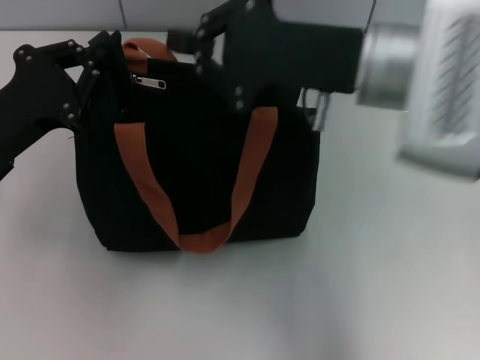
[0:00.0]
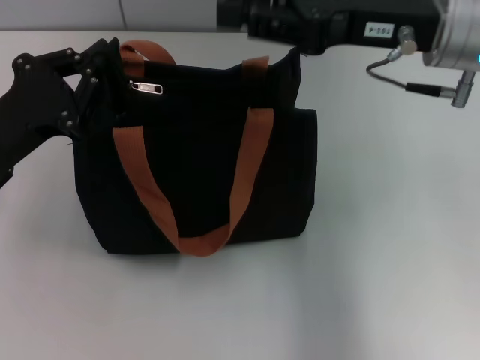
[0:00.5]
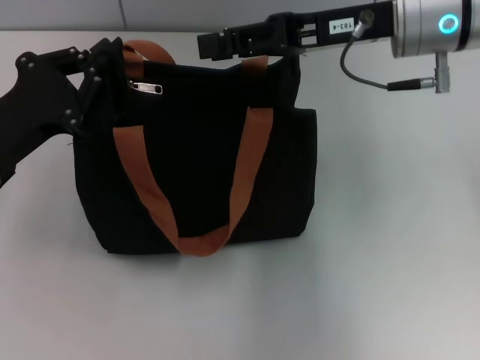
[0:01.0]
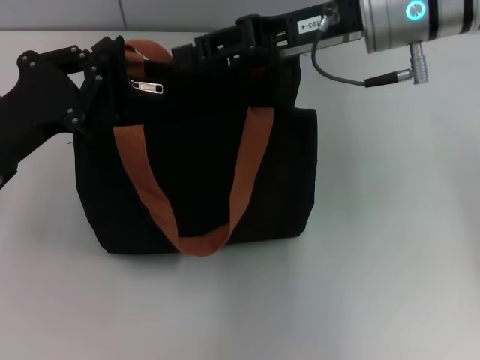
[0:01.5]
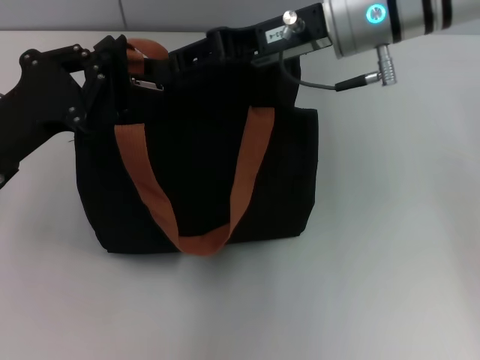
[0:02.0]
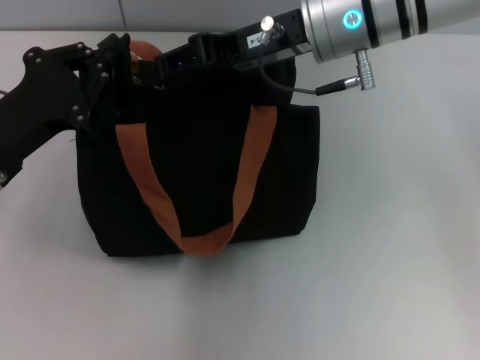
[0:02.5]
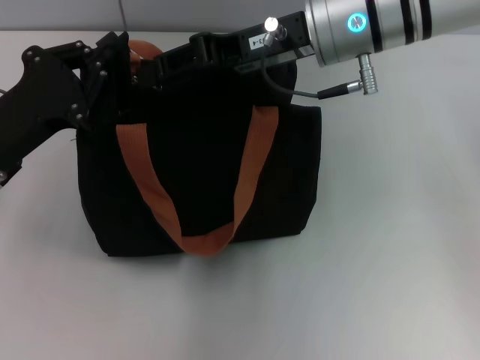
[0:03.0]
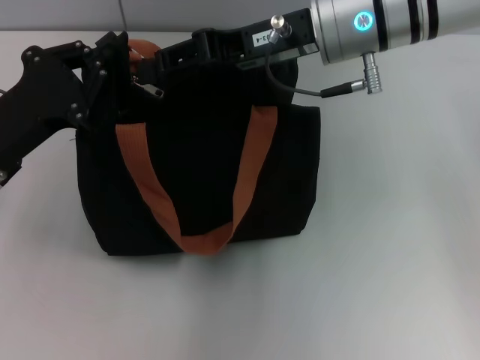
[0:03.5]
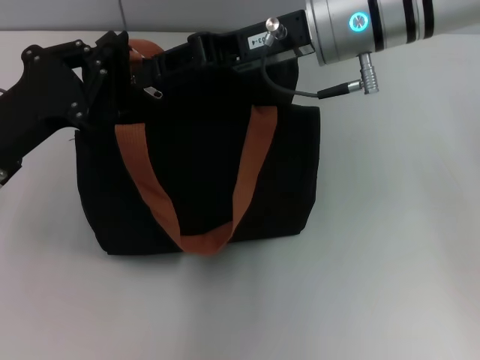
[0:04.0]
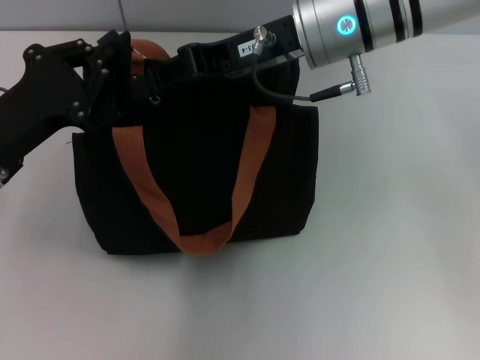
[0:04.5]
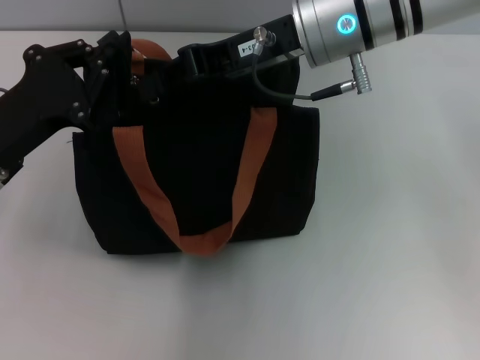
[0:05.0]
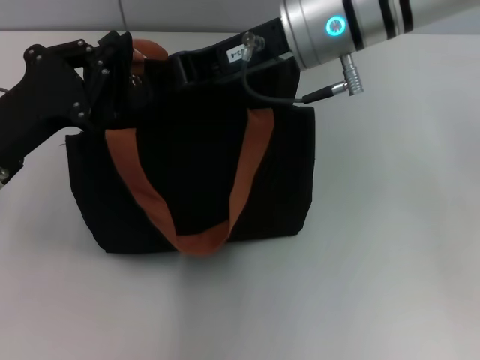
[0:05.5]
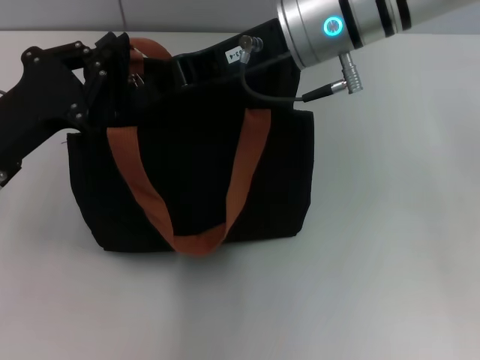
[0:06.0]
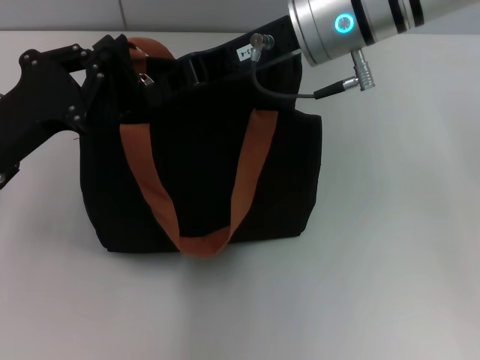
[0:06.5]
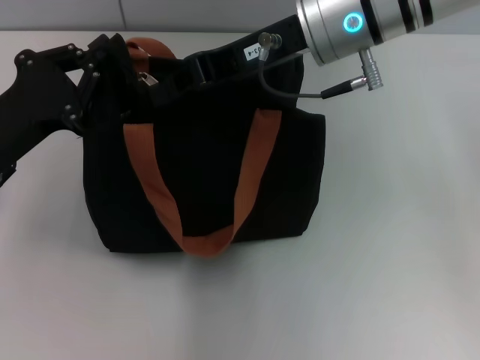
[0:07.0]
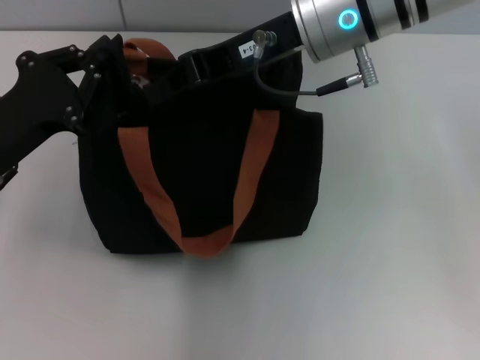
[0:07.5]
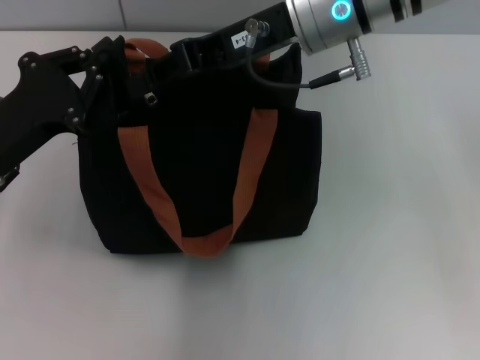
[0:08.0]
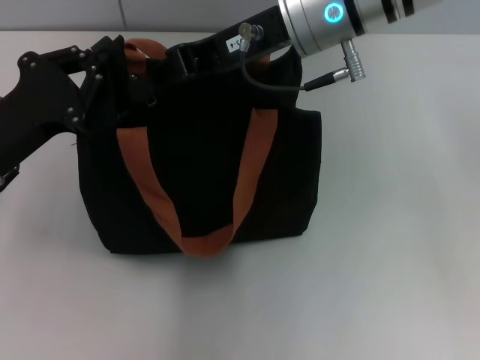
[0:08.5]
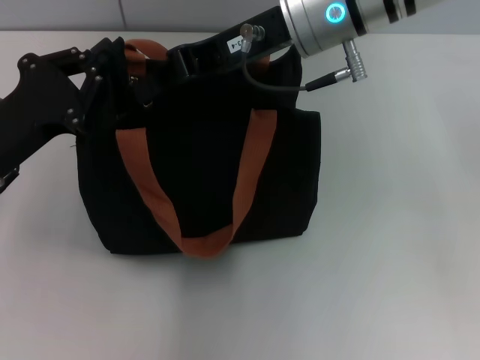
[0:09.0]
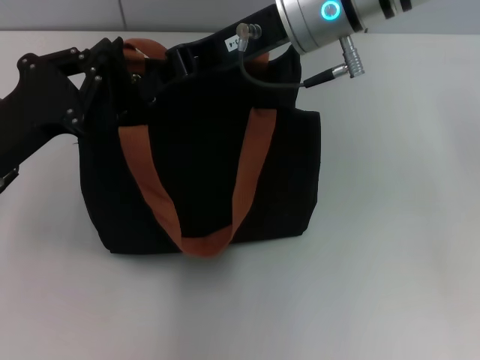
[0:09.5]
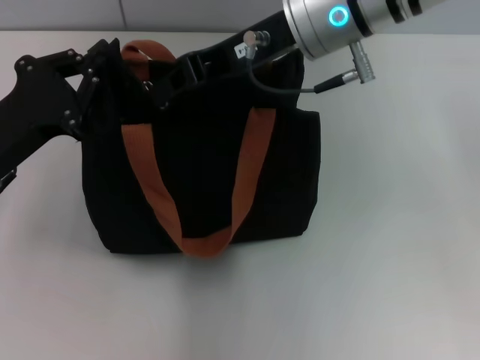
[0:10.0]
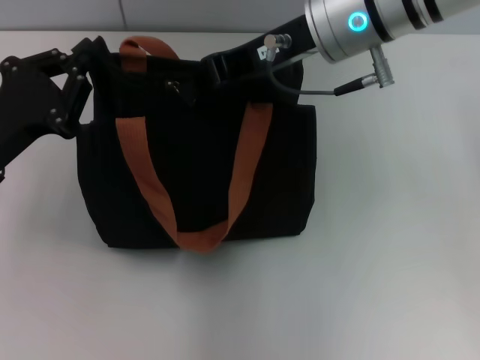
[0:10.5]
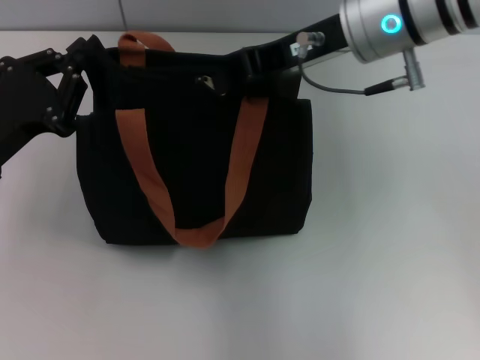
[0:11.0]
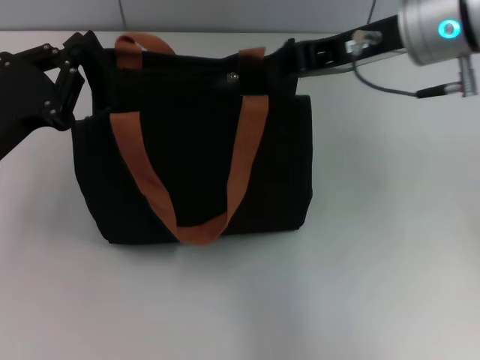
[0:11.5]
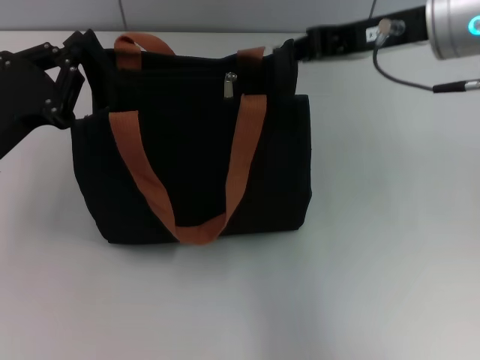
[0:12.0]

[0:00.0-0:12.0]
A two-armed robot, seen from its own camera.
Step, 0:00.0 to 0:11.0: Pull up the zipper with your right hand.
0:00.0 to 0:02.0: The right gripper travels forward by about 10 cm, and opens.
0:02.0 to 0:04.0: The grippers move only a little.
0:04.0 to 0:06.0: The right gripper closes up.
0:06.0 to 0:08.0: Both grippers stay put.
0:08.0 to 0:10.0: There are only small adjustments of the grippers.
0:10.0 to 0:12.0: The right gripper moves to the right, approximately 10 cm.

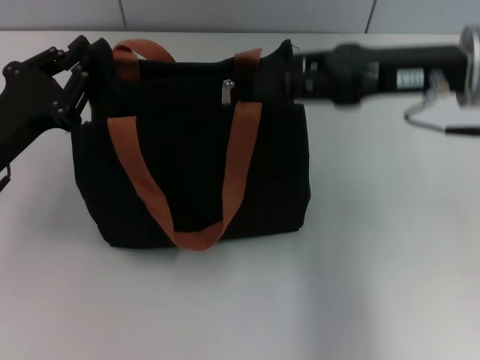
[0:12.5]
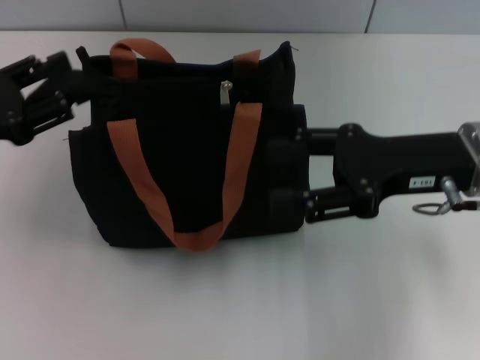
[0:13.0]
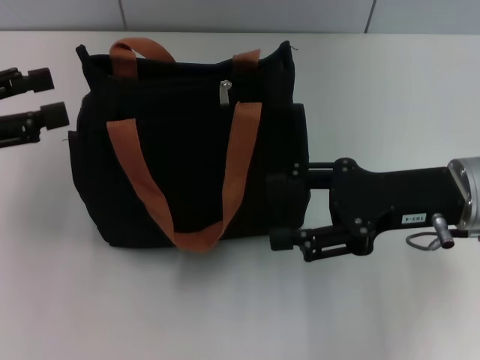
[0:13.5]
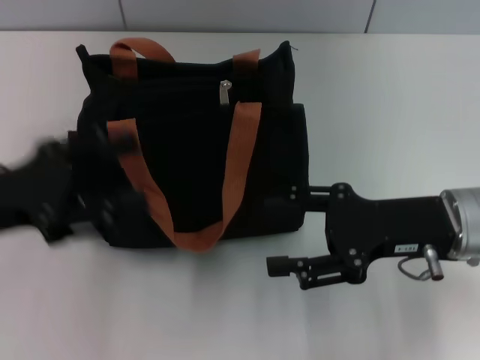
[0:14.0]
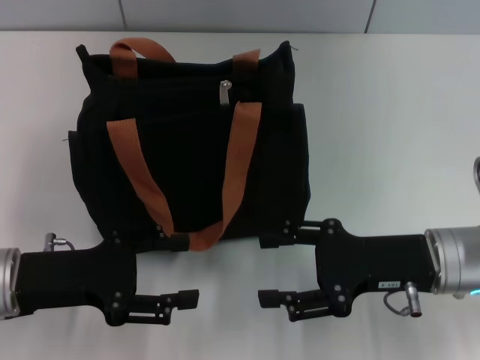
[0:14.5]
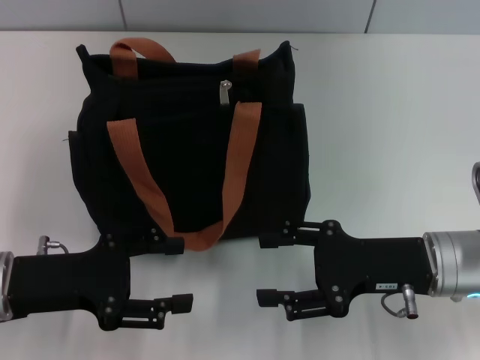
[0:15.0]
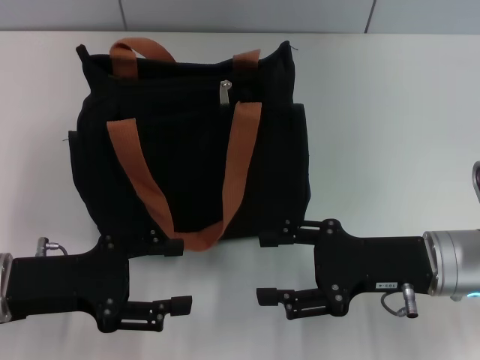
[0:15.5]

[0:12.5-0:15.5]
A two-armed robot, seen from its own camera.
0:12.5 to 0:14.0: The left gripper opens up. The right gripper is displaced downward and backward by some 10 cm, and opens its fingers.
0:14.0 to 0:15.5: The left gripper is displaced downward by some 5 cm.

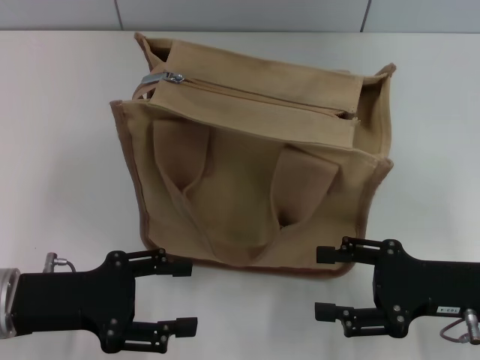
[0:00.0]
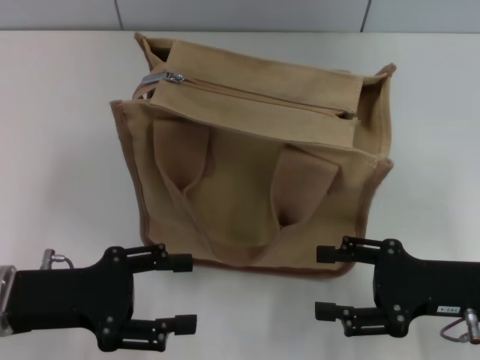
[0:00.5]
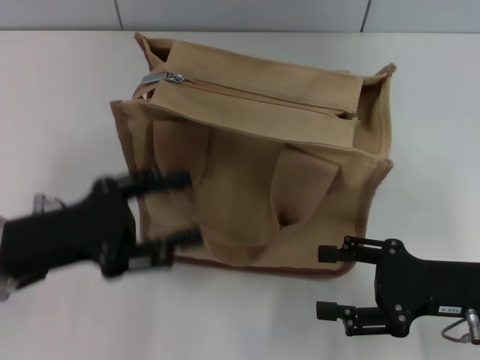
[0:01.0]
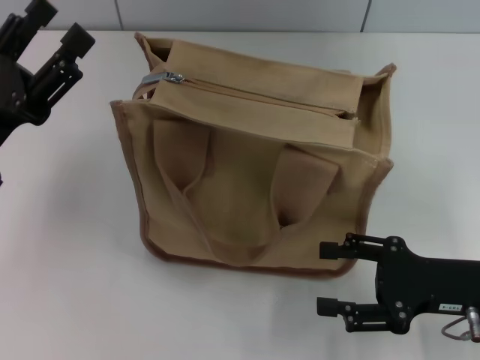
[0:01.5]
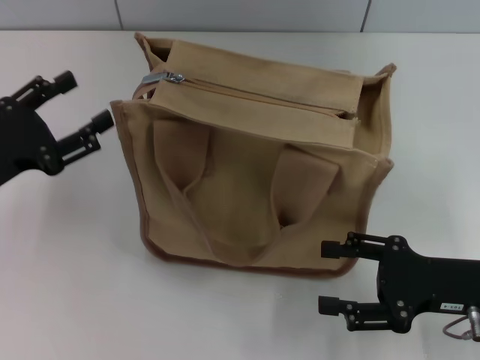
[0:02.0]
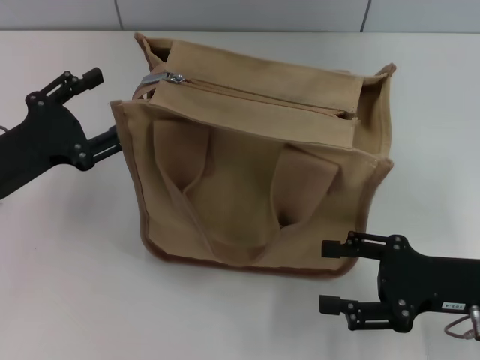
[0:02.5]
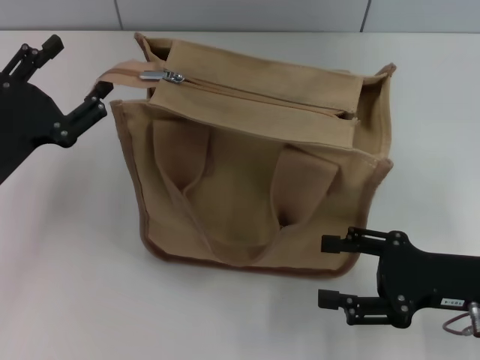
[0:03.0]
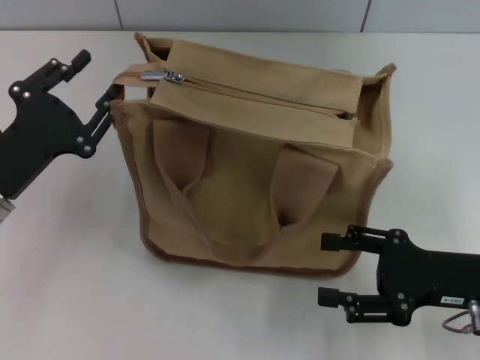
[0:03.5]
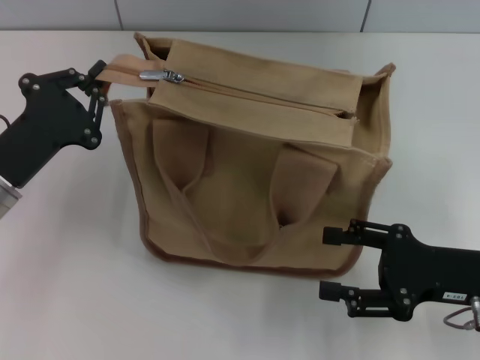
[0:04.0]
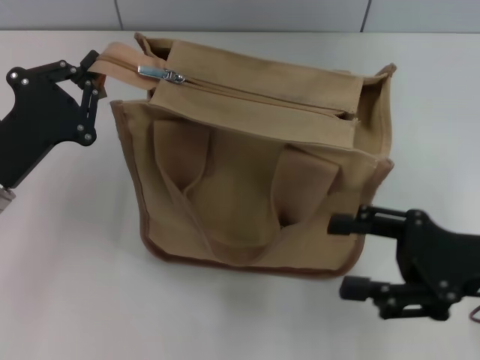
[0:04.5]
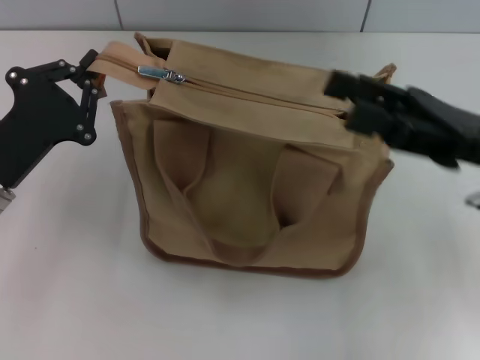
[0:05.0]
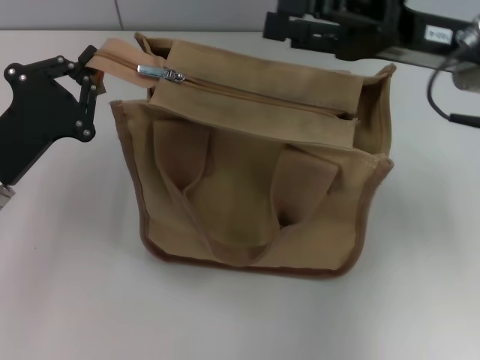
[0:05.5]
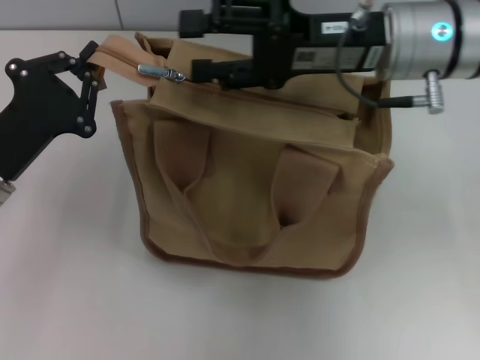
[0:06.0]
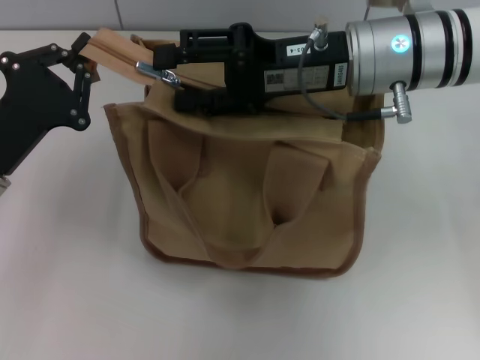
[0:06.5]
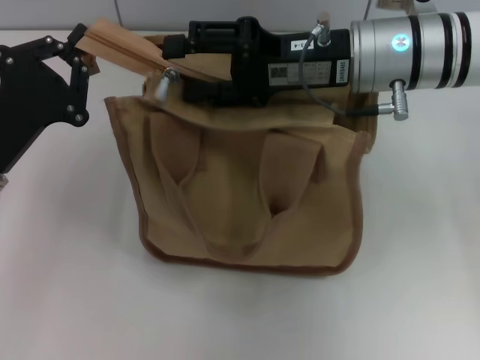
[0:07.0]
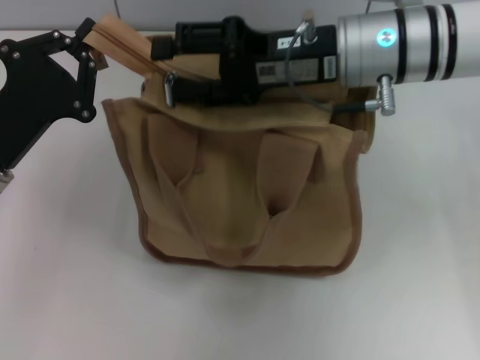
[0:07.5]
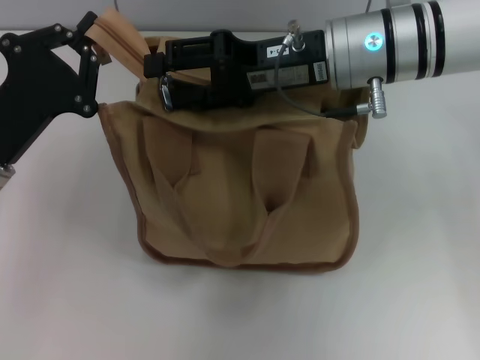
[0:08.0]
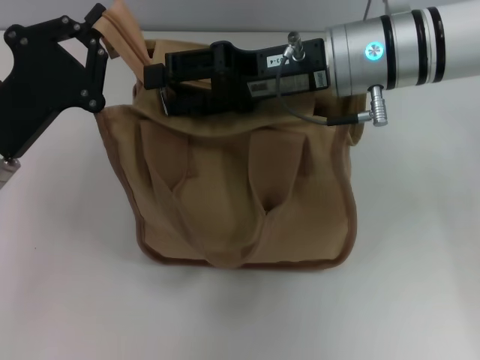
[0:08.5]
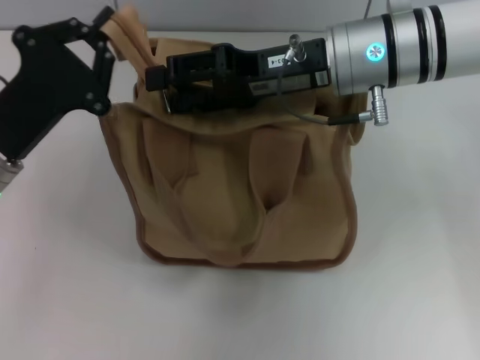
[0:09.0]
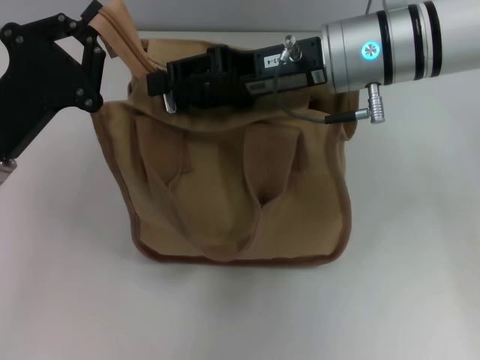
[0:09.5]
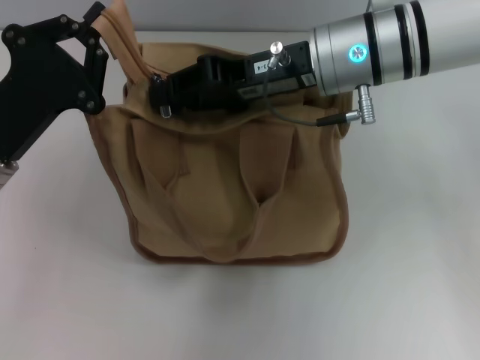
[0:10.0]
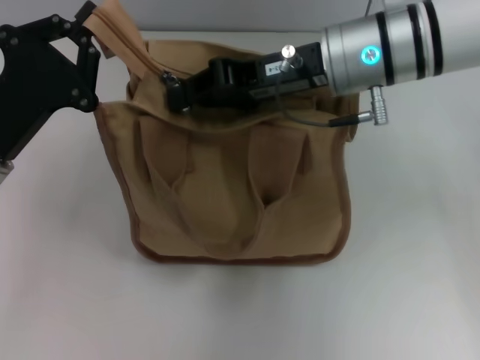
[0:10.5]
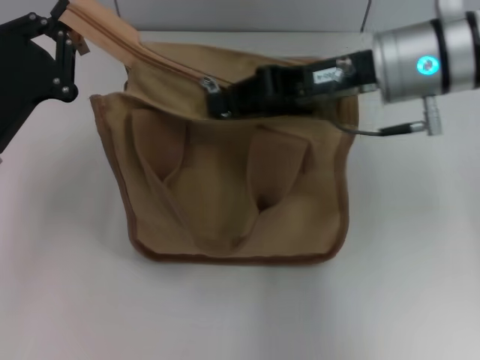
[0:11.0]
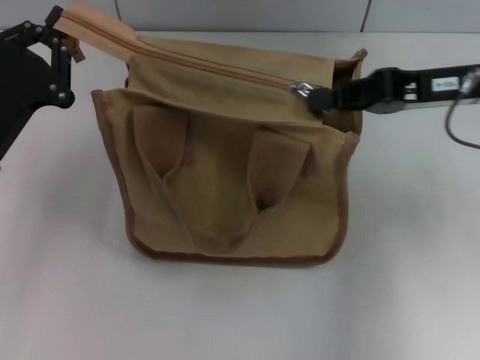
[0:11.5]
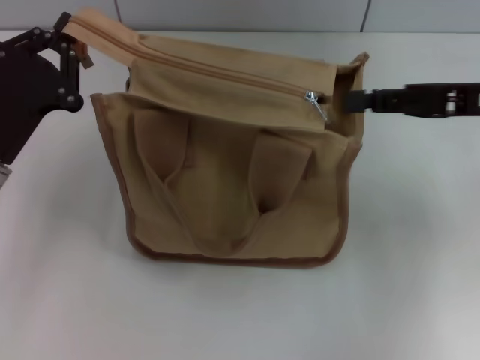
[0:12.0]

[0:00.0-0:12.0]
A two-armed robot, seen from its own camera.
0:00.0 to 0:02.0: The left gripper moves some 5 cm.
0:02.0 to 0:04.0: The left gripper closes.
0:04.0 to 0:06.0: The right gripper travels forward, upward and to the left by roughly 25 cm.
0:08.0 to 0:10.0: The right gripper closes.
0:10.0 to 0:12.0: The right gripper shifts approximately 15 cm to the right, and closes up.
